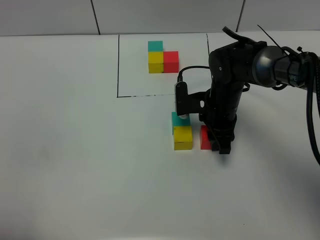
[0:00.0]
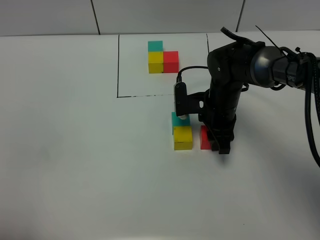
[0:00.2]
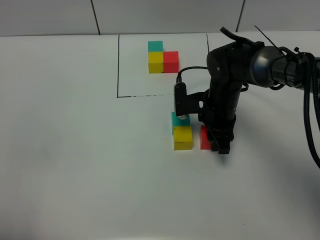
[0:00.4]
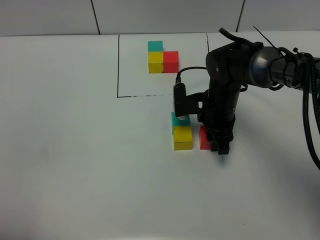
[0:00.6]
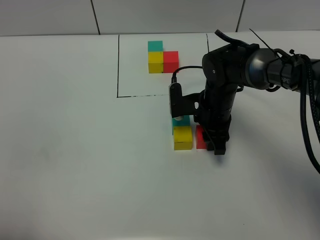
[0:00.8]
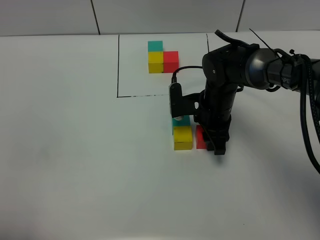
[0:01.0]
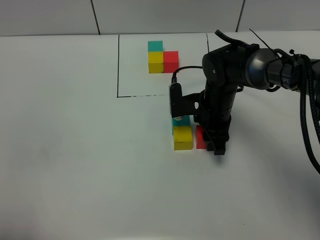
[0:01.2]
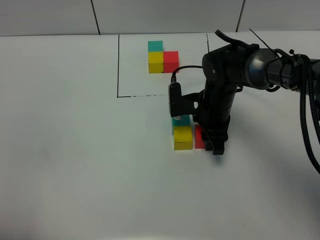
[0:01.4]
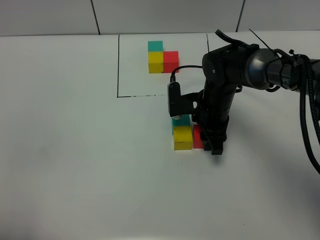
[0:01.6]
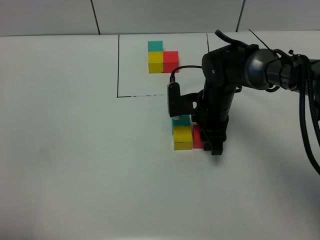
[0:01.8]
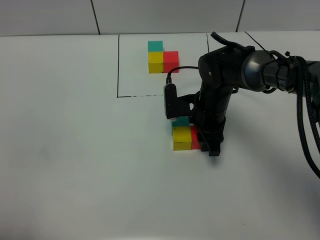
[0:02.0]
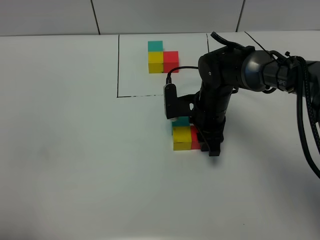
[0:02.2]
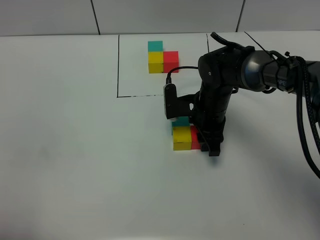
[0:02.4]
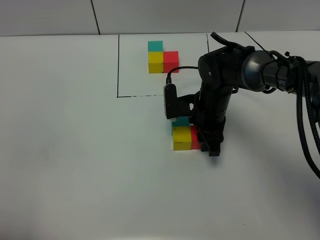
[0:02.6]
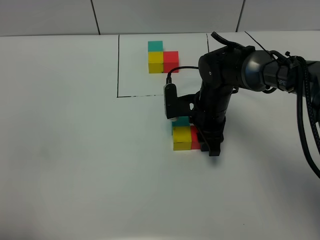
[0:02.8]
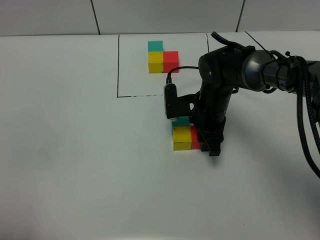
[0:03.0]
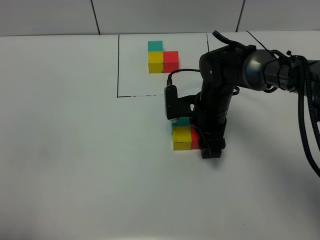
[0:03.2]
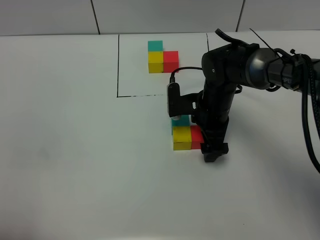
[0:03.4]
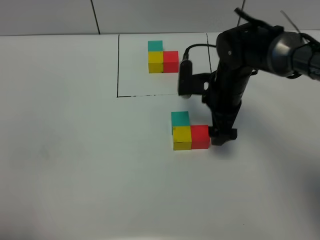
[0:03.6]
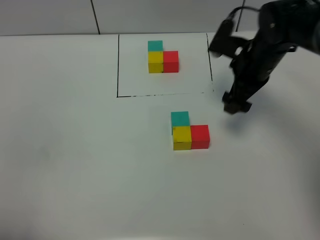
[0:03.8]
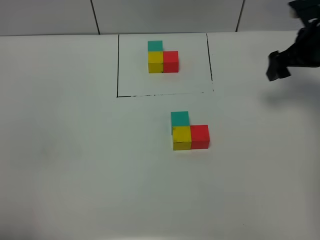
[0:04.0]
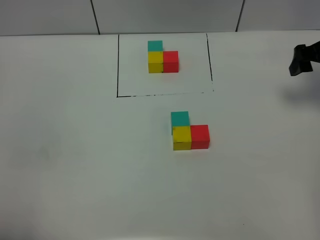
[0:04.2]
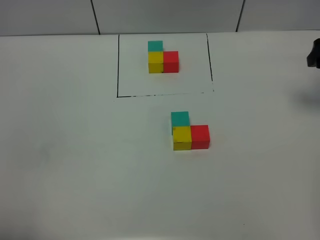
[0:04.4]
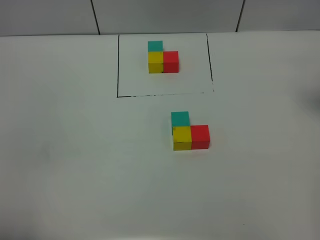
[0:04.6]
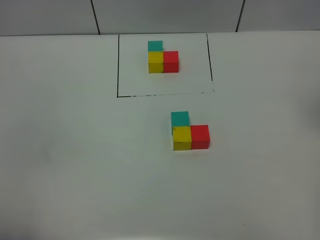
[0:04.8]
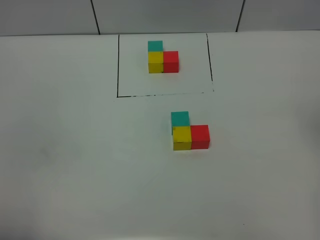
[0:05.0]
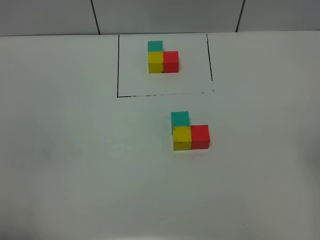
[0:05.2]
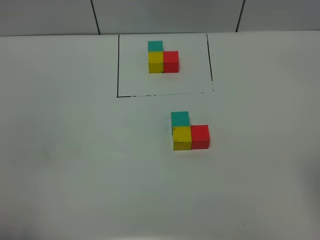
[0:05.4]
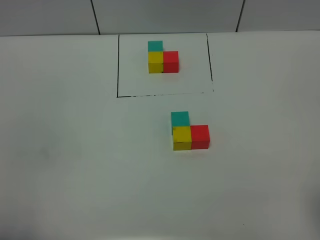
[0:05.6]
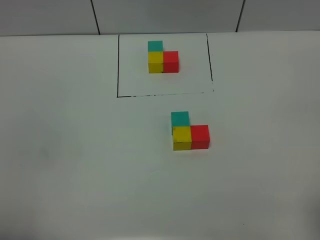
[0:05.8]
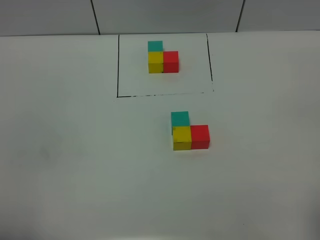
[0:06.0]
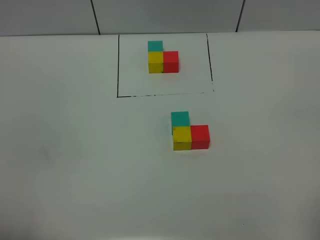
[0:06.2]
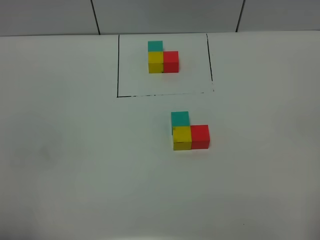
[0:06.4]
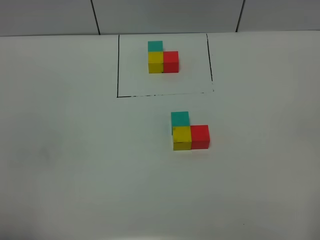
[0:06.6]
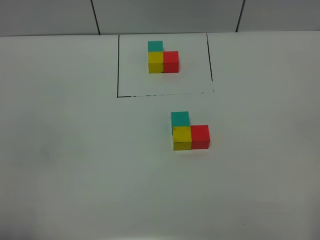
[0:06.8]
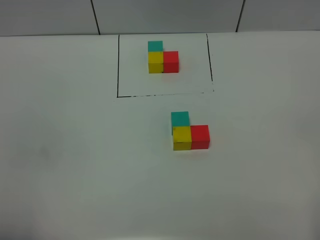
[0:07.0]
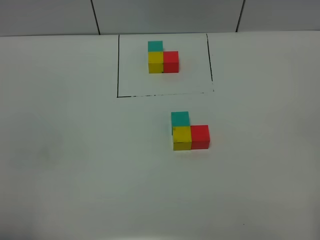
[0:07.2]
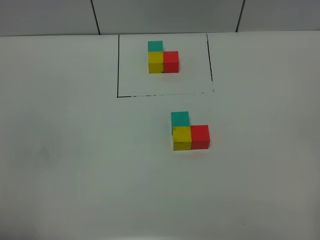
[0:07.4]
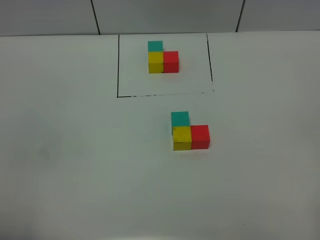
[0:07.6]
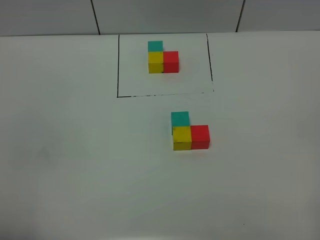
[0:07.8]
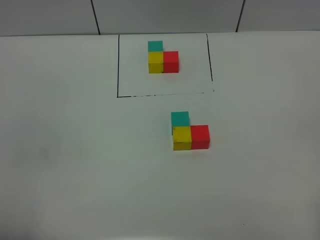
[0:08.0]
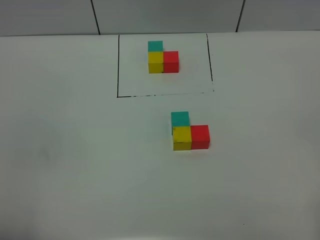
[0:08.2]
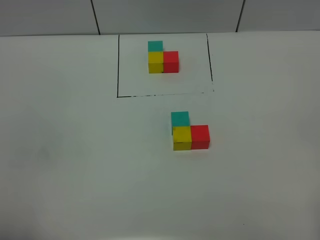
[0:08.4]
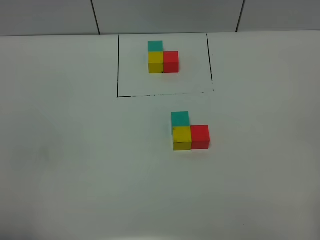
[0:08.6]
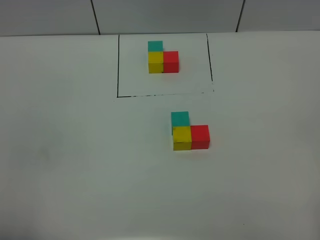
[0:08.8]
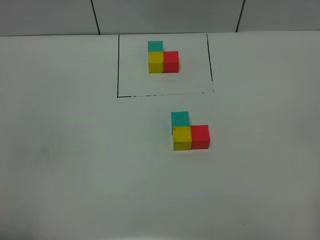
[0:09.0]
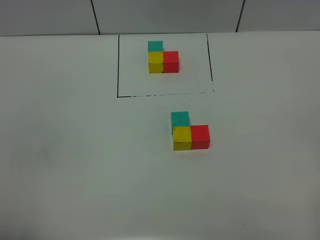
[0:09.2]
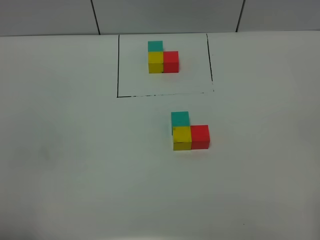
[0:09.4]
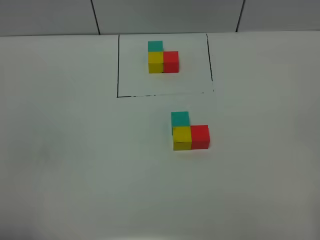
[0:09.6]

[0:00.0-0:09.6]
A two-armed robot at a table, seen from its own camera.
Task of the whole recording: According to the building block template in front, assemble the scattered blocks together.
Step, 0:00.0 to 0:03.2: Put the red build block on the right of the yellow build block.
0:00.0 to 0:01.6: There are only small adjustments of the grippers.
0:01.6 to 0:03.2: The right gripper opens up.
0:03.2 to 0:04.8: The right gripper moves upward and to the right, some 35 cm, and opens its fingers.
0:08.0 to 0:09.6: Neither gripper changes place.

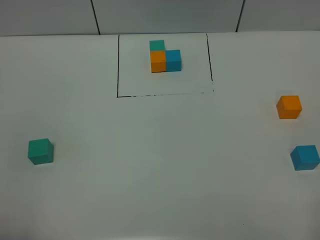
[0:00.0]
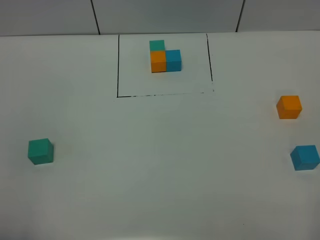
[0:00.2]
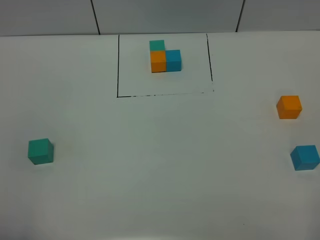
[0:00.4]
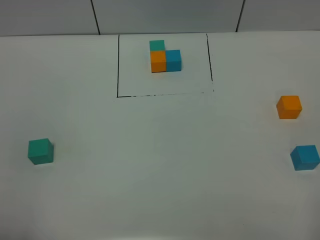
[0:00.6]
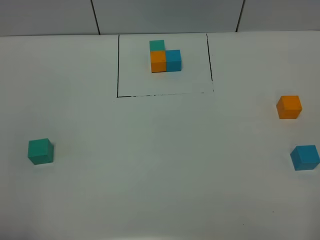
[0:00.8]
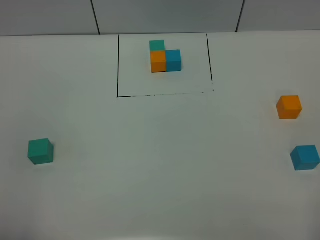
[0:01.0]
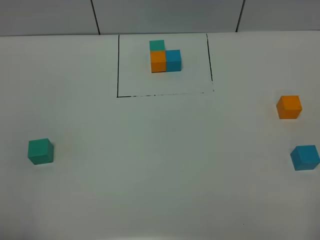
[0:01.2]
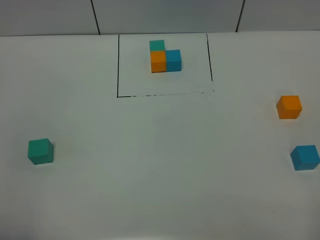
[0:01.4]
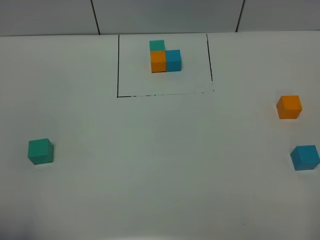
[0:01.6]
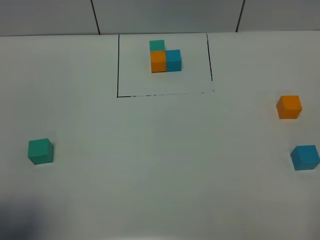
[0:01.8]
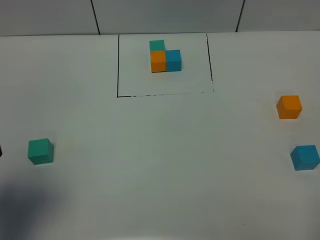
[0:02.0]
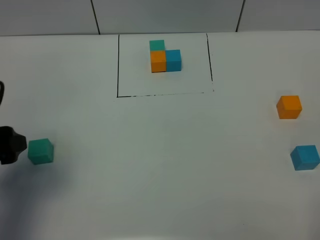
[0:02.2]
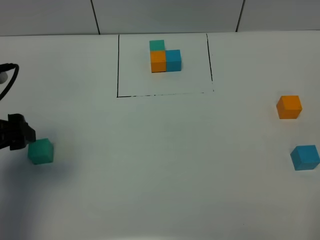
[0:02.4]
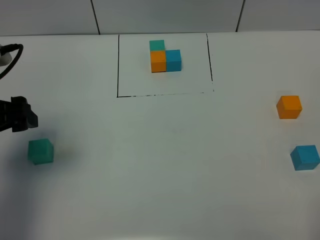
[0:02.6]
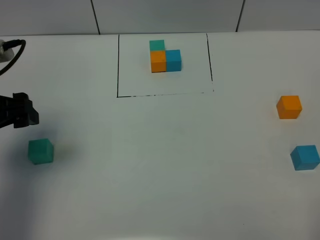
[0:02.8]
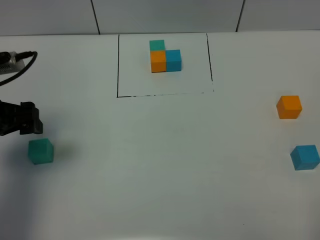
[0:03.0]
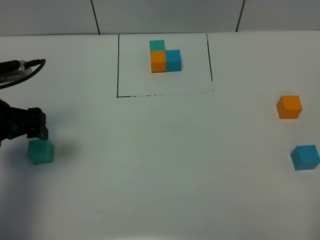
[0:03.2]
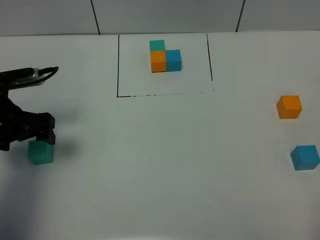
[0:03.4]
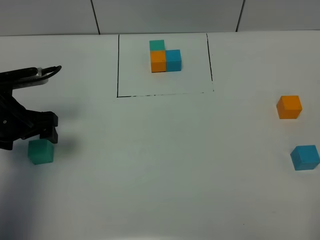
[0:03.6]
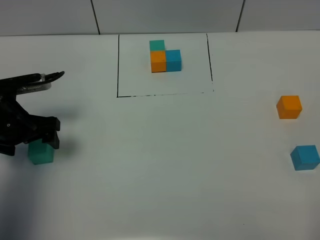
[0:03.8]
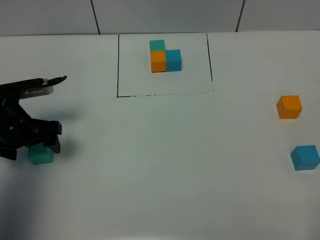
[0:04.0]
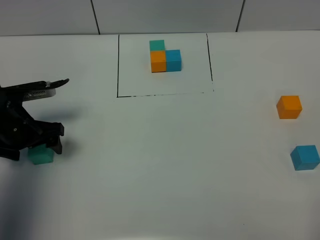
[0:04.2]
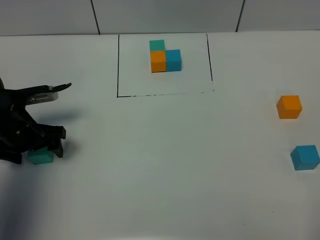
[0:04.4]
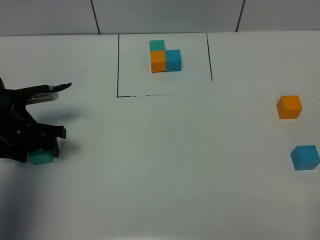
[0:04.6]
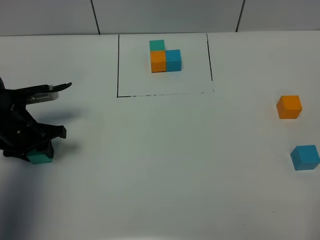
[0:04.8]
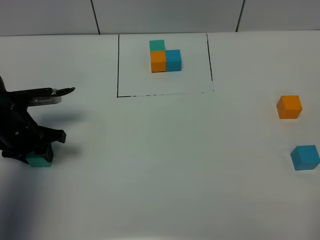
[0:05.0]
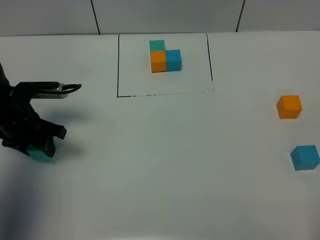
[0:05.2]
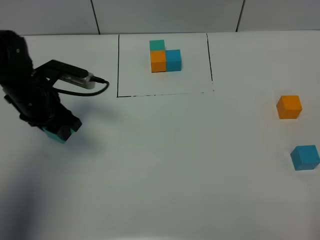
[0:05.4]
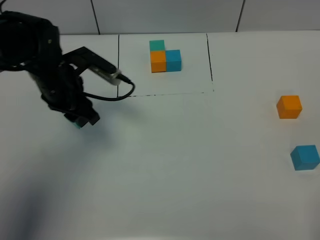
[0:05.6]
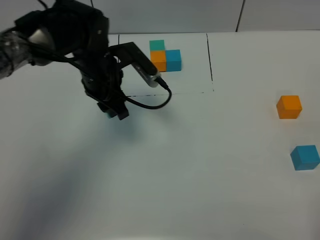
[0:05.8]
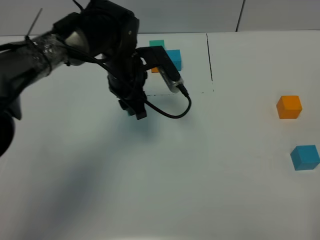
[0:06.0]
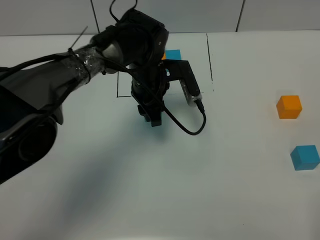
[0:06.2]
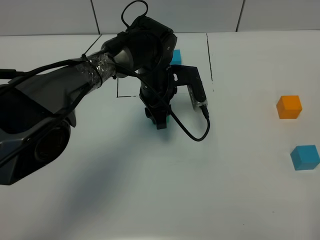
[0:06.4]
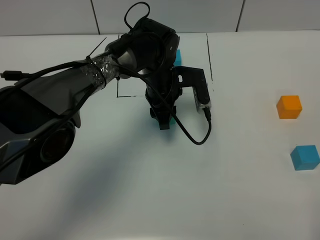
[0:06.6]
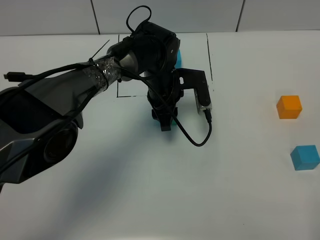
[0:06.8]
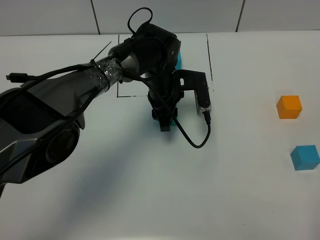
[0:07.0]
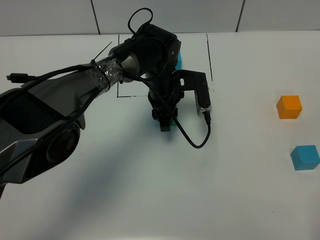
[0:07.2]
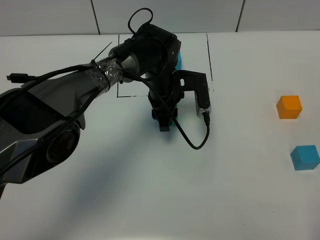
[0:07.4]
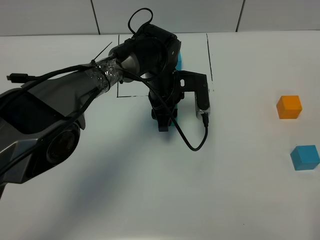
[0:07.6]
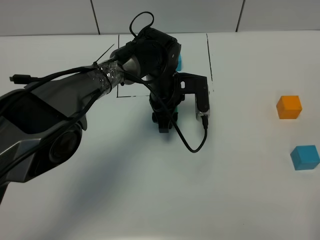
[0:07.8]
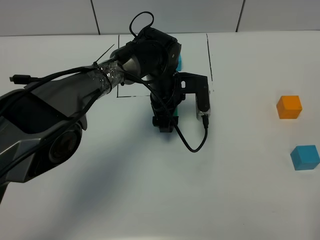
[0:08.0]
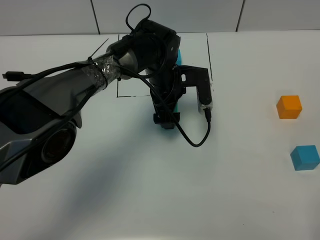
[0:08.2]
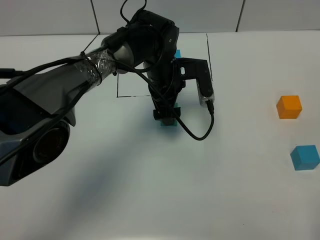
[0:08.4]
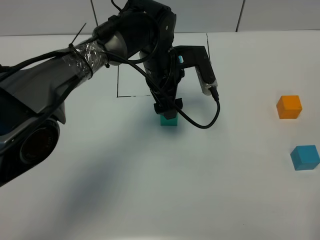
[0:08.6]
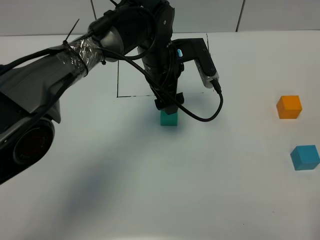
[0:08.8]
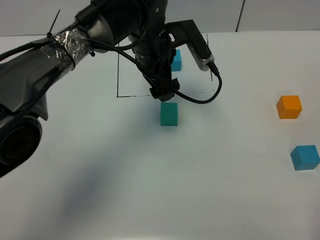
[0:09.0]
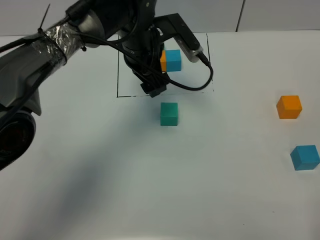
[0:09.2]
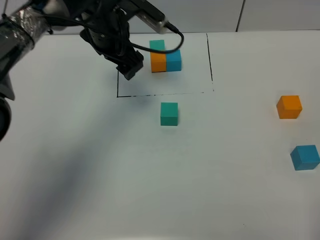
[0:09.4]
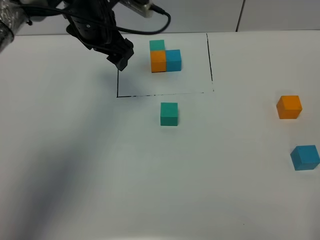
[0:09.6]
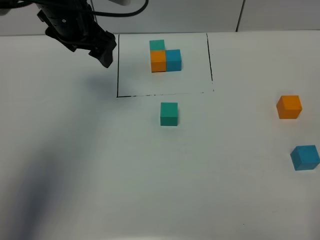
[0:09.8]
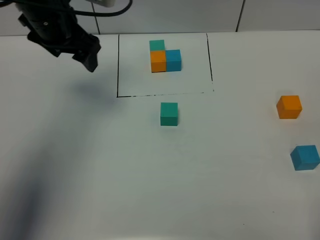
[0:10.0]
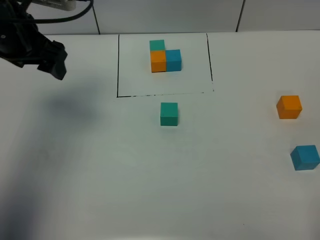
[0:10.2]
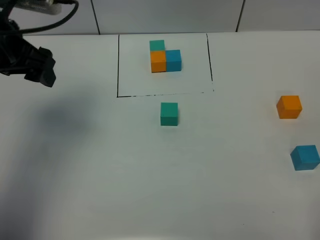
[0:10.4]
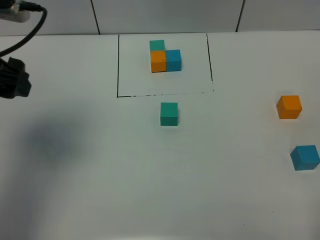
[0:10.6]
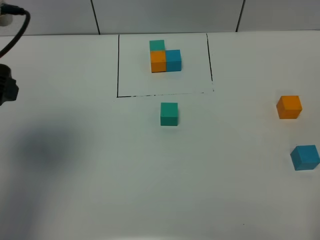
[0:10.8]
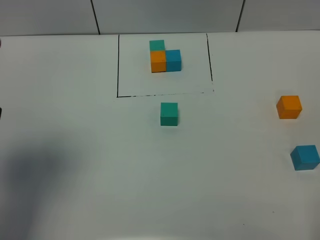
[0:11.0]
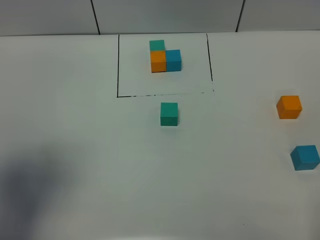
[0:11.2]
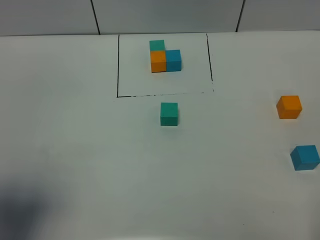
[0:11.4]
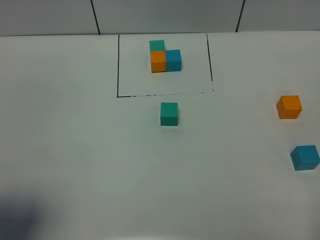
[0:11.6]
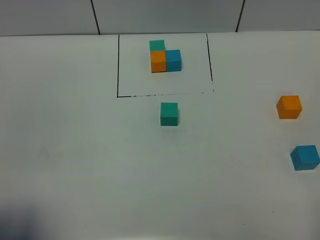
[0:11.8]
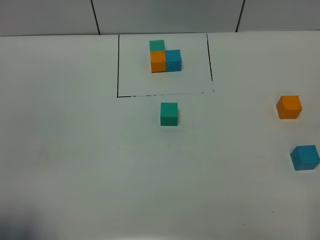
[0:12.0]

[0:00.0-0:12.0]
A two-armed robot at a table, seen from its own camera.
Task of the whole recording: According to the building block template in front, assemble the scattered blocks together.
Step, 0:00.0 to 0:07.8: Put the green build block in the center of the table.
0:01.6 to 0:03.0: The left gripper moves forward, some 25 cm.
0:03.0 to 0:04.4: The left gripper shifts approximately 10 cm downward.
0:04.4 to 0:06.0: The left gripper heads to the right and forward, covering roughly 25 cm, and closes its fingers.
0:06.0 to 0:07.6: The left gripper travels to the right and downward by approximately 10 cm.
0:07.6 to 0:09.0: The left gripper heads upward, covering about 10 cm, and opens up.
0:09.0 to 0:10.4: The left gripper travels to the left and upward by approximately 25 cm.
0:10.4 to 0:12.0: The left gripper moves backward, roughly 30 cm.

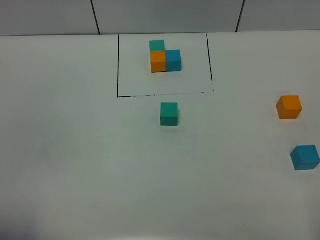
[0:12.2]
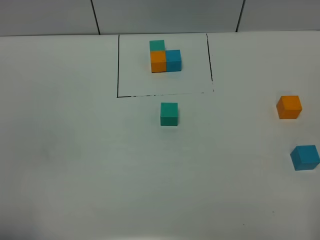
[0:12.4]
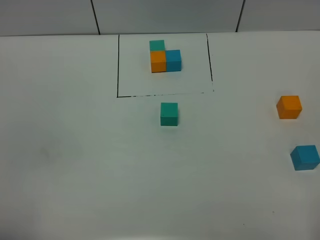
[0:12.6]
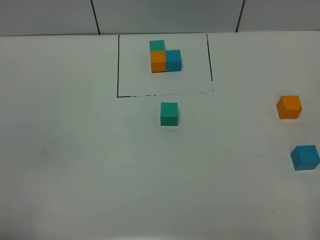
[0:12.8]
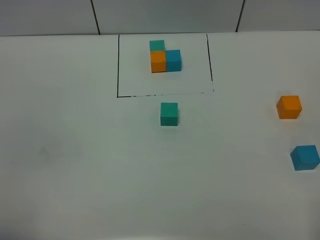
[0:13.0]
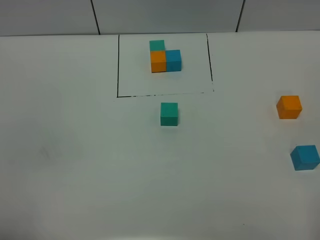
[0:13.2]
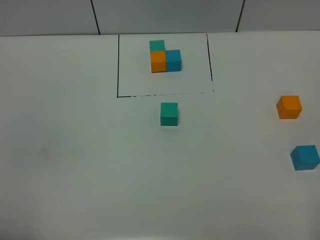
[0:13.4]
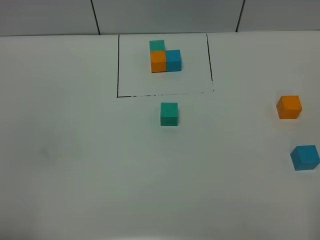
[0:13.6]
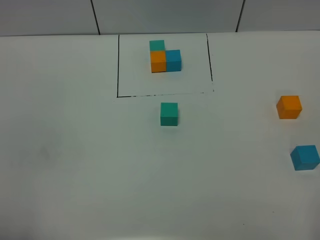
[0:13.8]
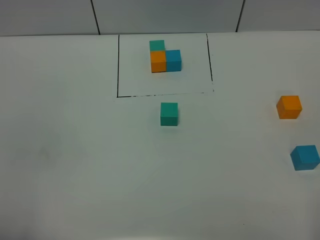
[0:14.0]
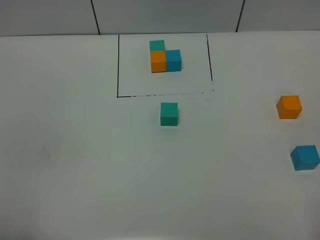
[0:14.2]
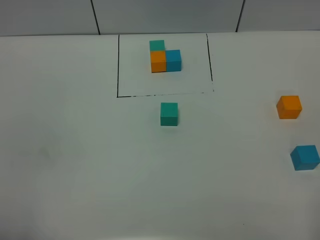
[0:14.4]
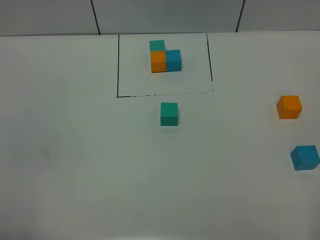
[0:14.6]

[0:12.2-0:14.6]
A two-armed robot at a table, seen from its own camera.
Task of the whole recording: According to the building block template in front, assemble the scattered blocks together.
0:13.4 to 0:14.6: Both grippers stay put.
